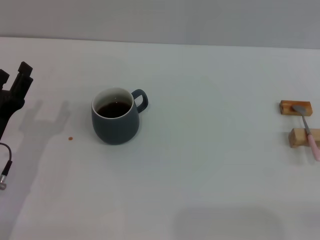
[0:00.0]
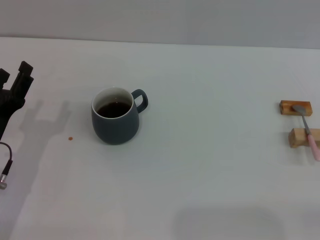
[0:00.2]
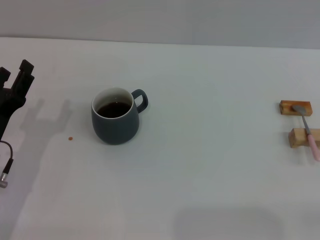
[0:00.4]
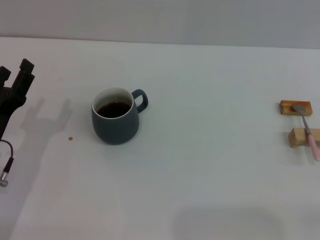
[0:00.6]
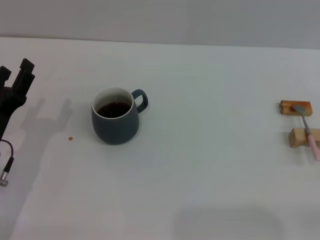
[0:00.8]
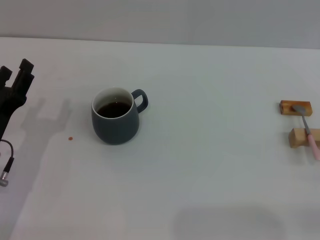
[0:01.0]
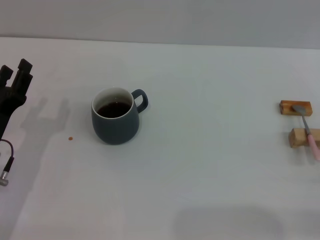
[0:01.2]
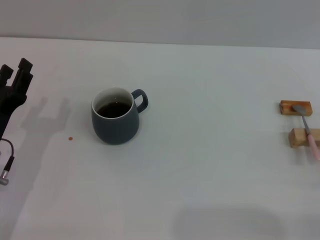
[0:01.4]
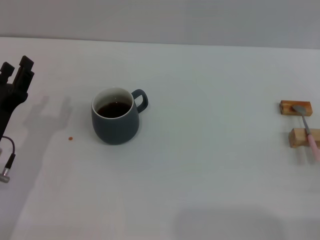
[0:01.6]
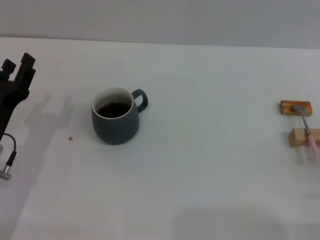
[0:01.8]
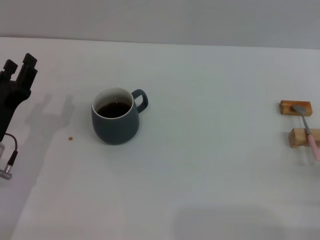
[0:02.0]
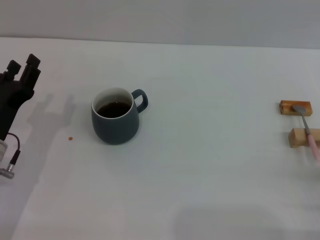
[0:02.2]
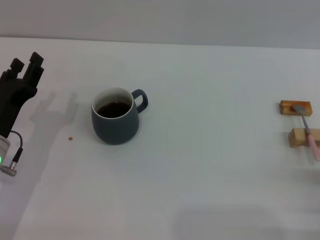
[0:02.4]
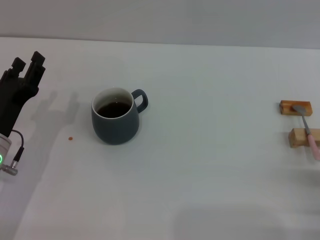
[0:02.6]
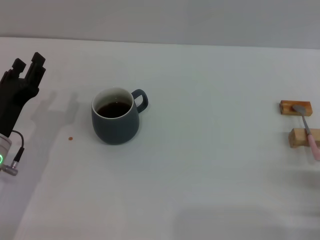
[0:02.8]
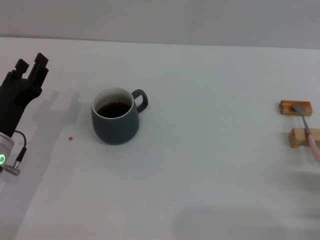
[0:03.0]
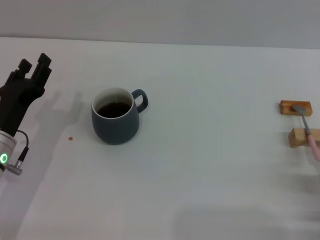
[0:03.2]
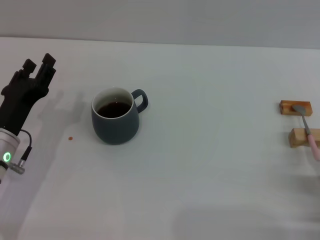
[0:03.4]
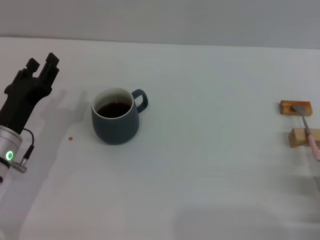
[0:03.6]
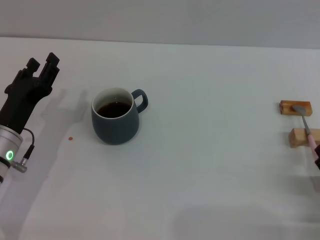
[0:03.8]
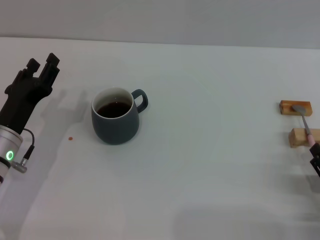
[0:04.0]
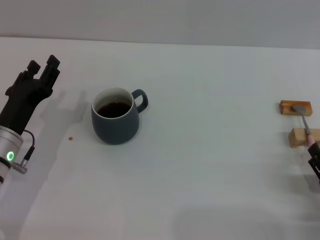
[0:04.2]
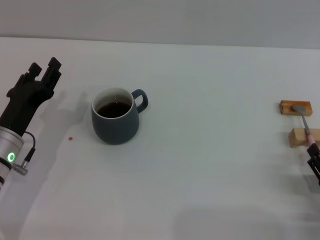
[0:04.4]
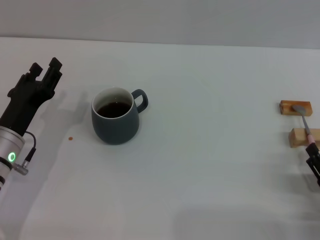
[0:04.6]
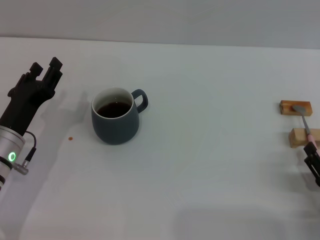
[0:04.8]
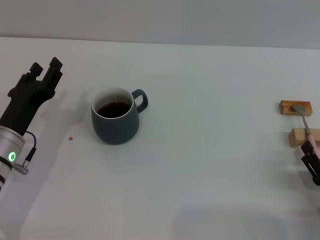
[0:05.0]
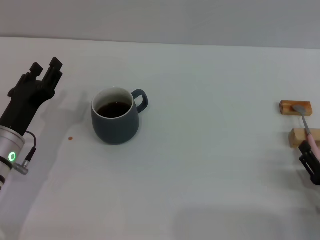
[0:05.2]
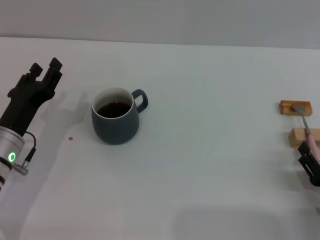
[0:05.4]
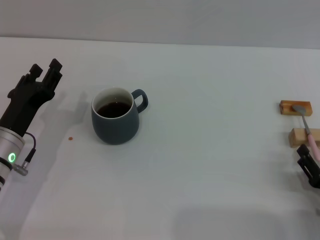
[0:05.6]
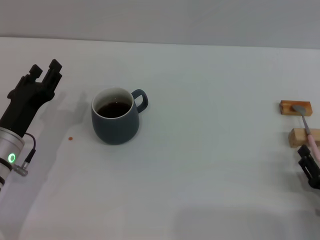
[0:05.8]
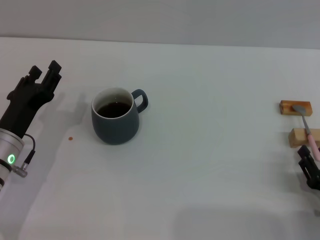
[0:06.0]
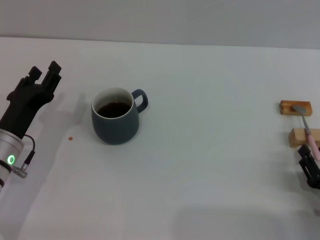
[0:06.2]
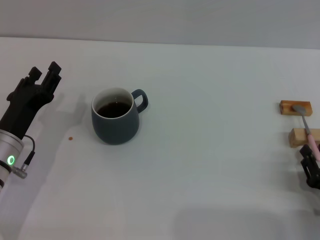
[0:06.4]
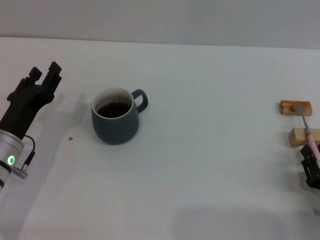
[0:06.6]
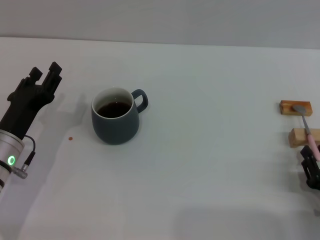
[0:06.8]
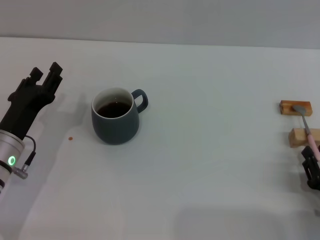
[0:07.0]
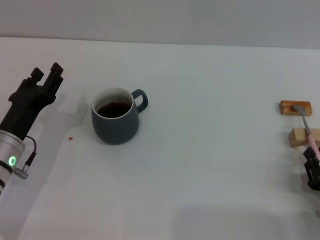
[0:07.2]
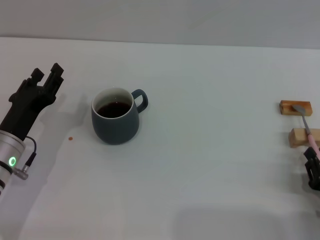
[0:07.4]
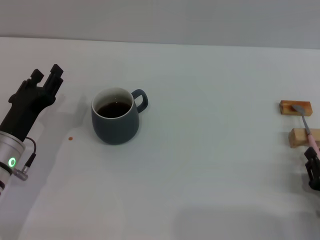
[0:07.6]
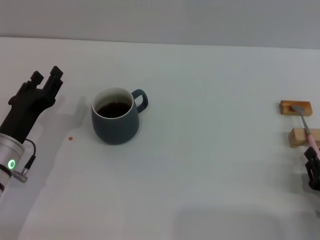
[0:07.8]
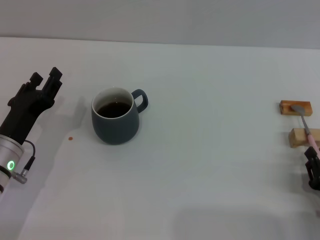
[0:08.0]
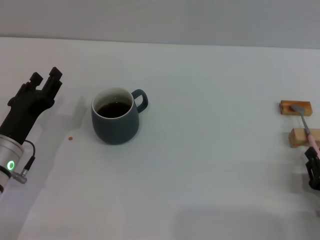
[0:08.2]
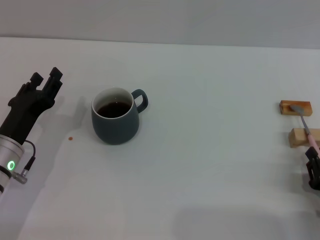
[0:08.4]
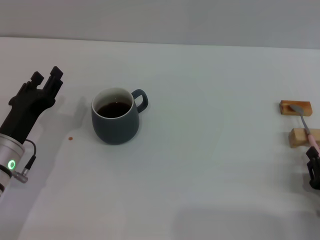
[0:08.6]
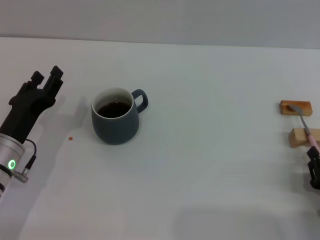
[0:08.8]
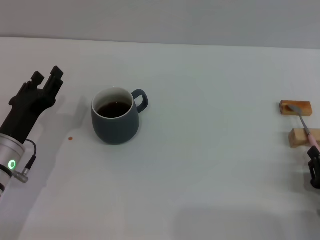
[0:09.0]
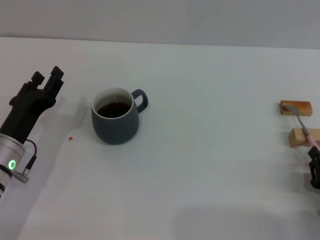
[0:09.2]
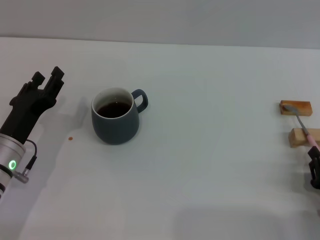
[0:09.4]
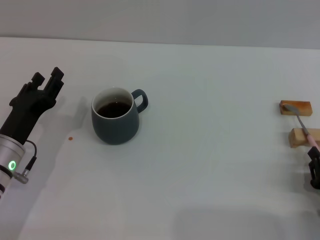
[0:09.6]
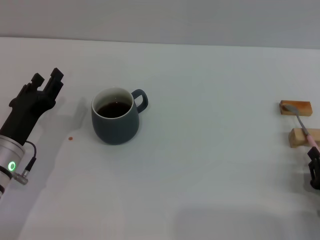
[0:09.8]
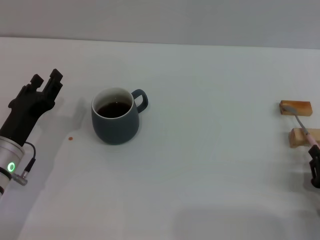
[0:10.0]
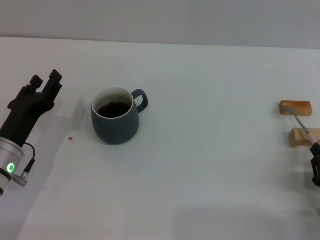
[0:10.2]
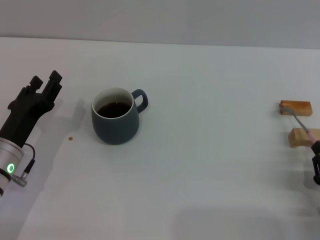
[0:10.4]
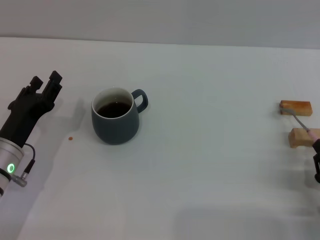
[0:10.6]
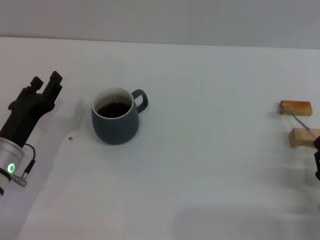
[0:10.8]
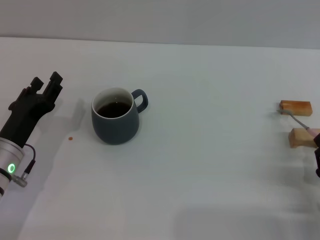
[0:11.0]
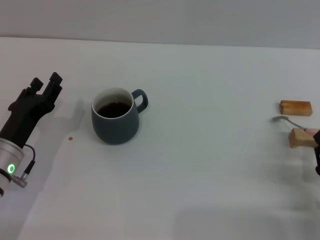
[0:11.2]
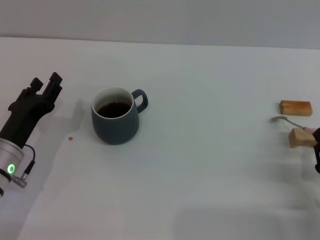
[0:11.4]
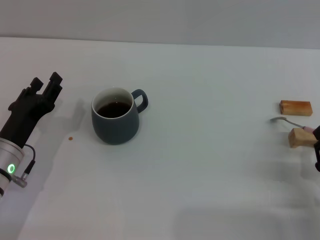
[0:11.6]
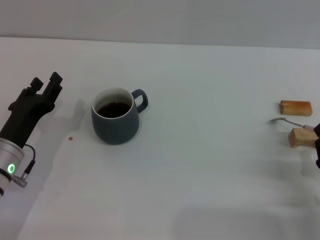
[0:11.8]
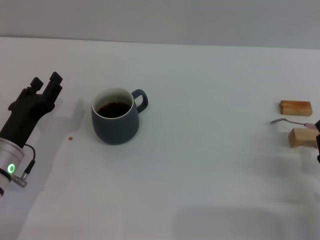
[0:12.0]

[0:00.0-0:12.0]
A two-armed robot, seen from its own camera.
Task of the whole recording: Move the grey cup to the center, lift the pink spoon, stir it three times in the cup, and put the spoon into the cup.
0:00.0 to 0:01.6: The grippers stay close to where they were, moving slightly.
0:03.0 to 0:04.4: There are only small adjustments of the grippers.
0:04.4 to 0:06.0: Both grippers stay put.
0:07.6 to 0:10.4: Neither gripper changes place.
0:10.4 to 0:12.0: The grippers stay close to where they were, moving slightly.

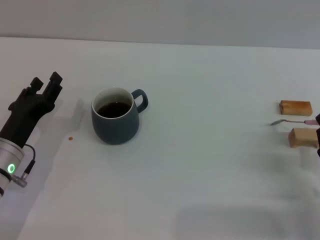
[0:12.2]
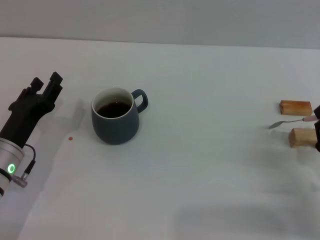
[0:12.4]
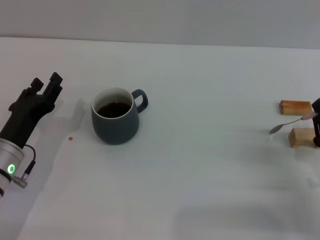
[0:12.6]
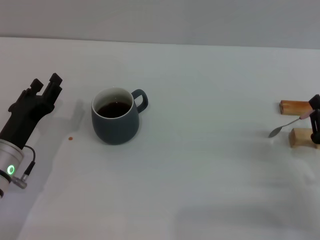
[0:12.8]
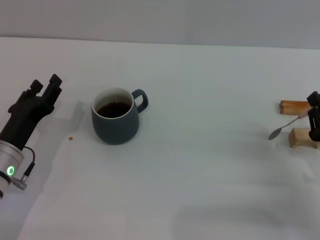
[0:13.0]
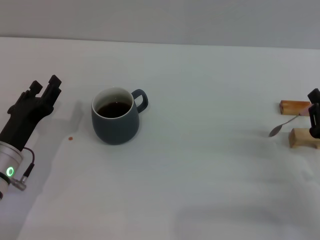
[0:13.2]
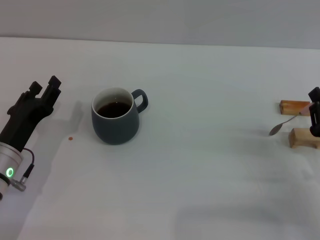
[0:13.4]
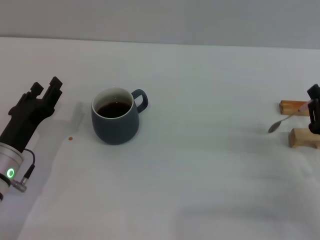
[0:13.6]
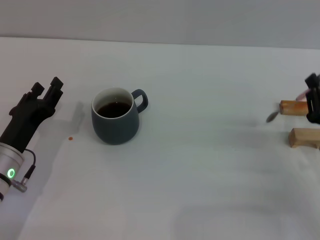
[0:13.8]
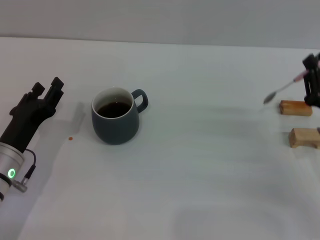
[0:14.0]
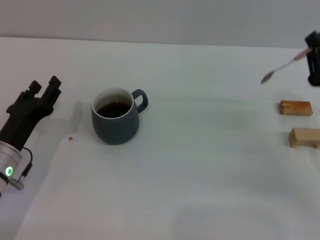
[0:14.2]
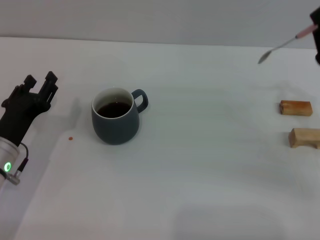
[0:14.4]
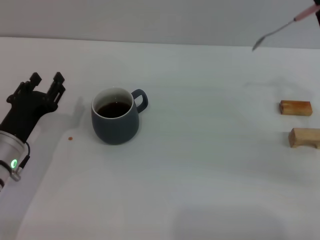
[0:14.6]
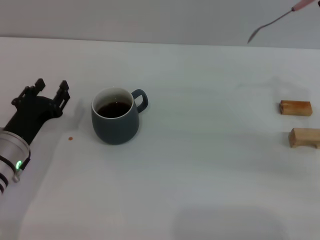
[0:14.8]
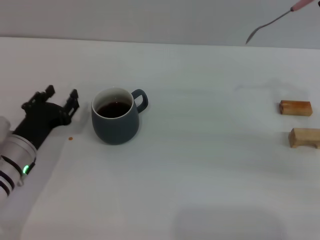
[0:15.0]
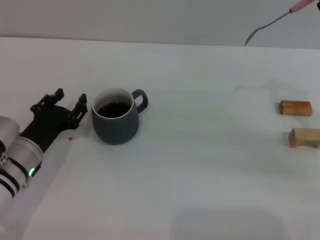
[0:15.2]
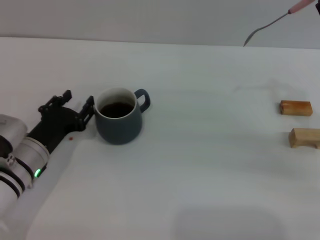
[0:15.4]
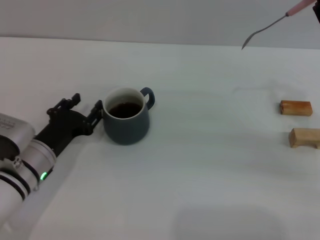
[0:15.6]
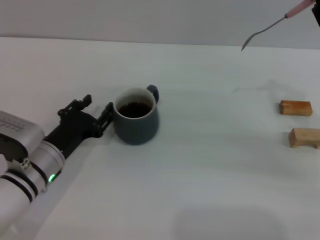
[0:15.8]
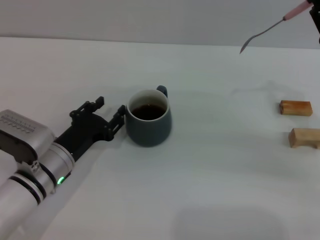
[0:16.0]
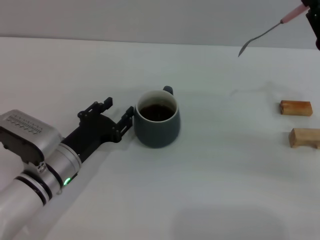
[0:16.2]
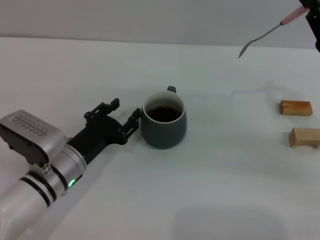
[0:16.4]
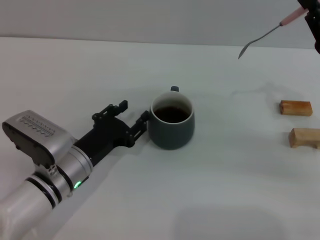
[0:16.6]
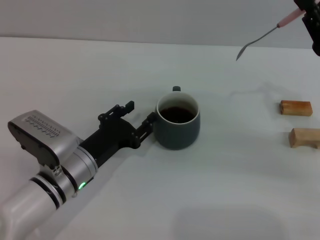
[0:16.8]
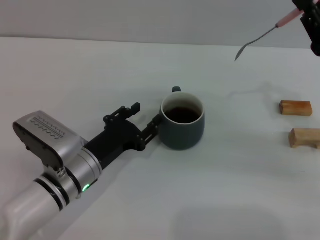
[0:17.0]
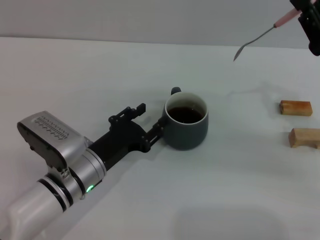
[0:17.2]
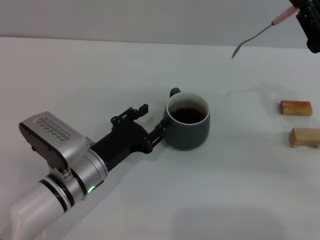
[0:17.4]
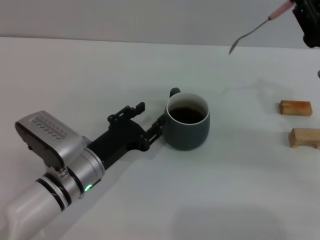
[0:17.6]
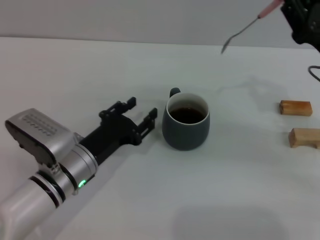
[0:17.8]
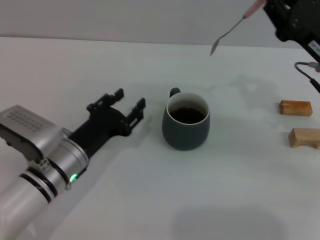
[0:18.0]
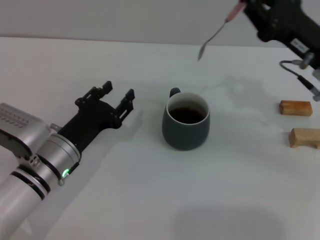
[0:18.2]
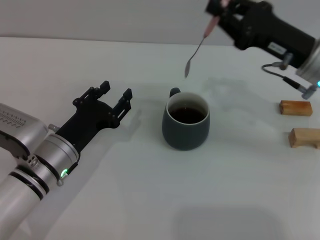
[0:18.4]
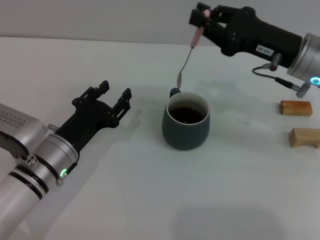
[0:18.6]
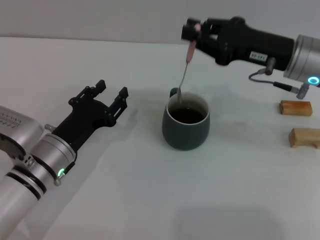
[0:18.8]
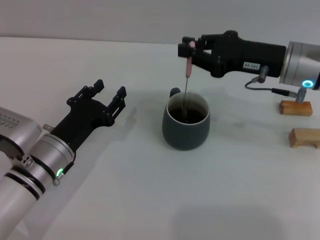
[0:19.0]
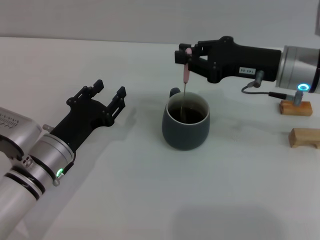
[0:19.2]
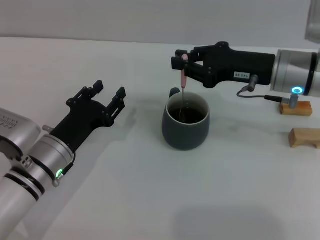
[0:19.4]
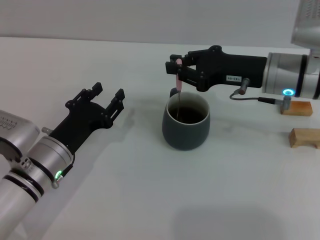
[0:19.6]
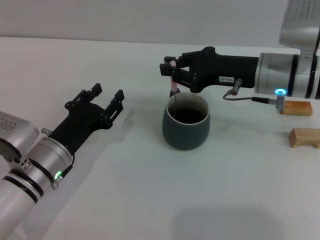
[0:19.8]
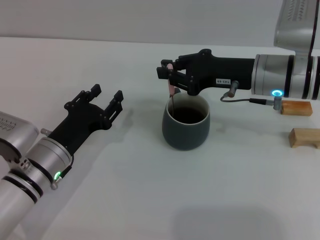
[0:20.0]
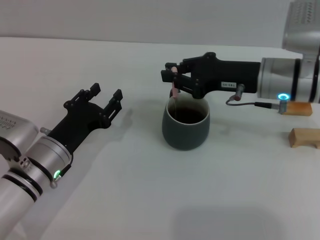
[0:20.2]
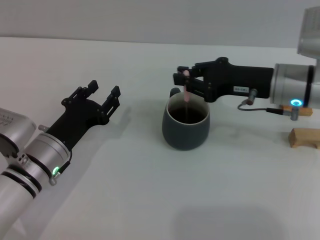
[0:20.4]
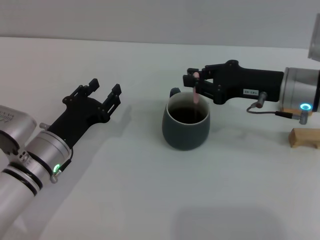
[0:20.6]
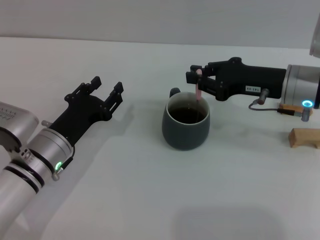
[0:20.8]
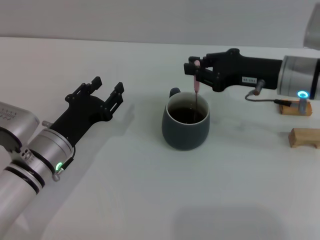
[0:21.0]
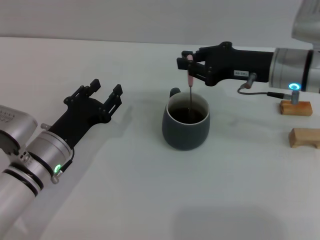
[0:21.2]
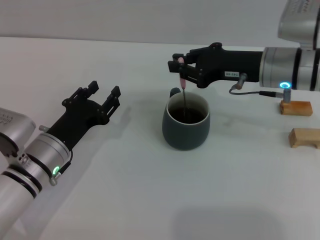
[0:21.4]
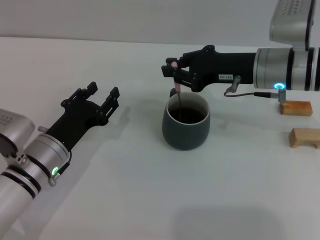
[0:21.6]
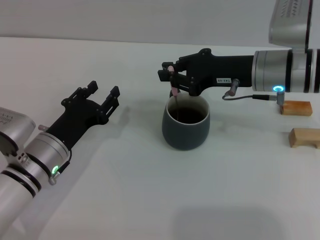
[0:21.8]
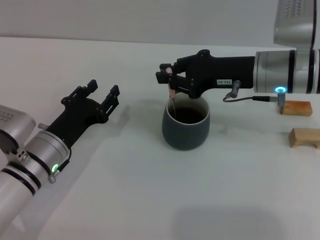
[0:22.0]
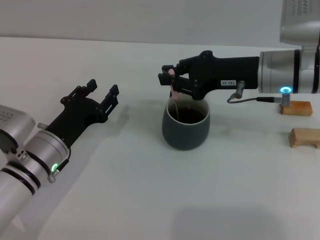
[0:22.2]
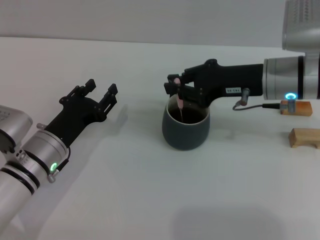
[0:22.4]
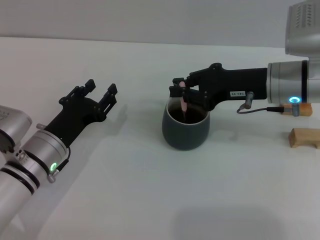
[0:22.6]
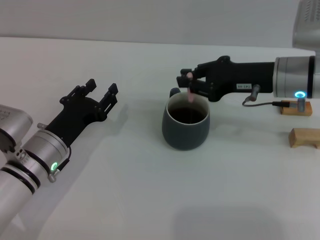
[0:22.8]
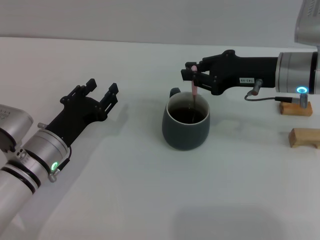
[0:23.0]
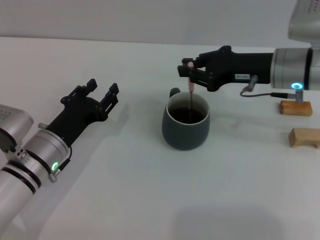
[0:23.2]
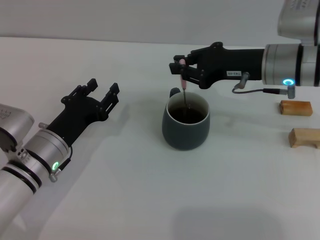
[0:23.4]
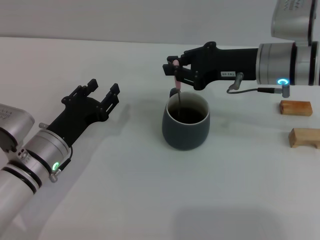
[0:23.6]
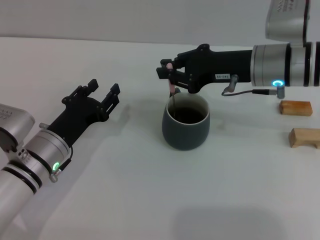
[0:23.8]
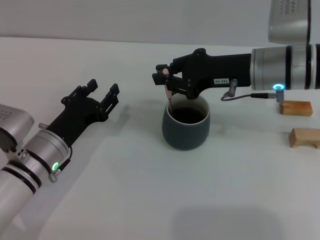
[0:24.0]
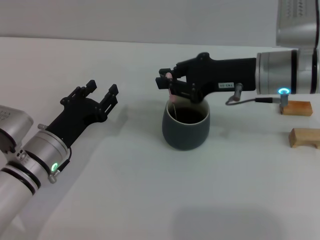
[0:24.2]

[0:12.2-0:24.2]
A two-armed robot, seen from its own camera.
Task of the whole recording: Move the grey cup to the center, lift the pink spoon, stir it three times in the cup, and put the spoon into the cup.
Step, 0:12.2 to 0:15.0: Pick up the spoon with the right gripper.
Step, 0:15.2 to 0:18.0: Move the cup with coffee to the center of view with the left gripper.
0:12.2 to 0:13.8: The right gripper ends up about 5 cm from where it was.
0:13.8 to 0:15.2: The right gripper is displaced upward and forward by some 10 cm.
0:15.2 to 0:16.6: The left gripper goes roughly 5 cm to the right.
0:16.6 to 0:18.2: The right gripper changes place by some 5 cm.
0:18.2 to 0:19.8: The right gripper is displaced to the left by some 5 cm.
0:19.8 to 0:24.2: The grippers make only small movements.
